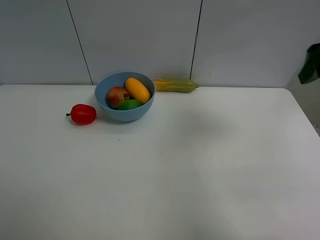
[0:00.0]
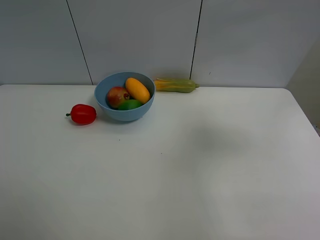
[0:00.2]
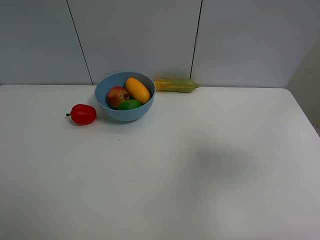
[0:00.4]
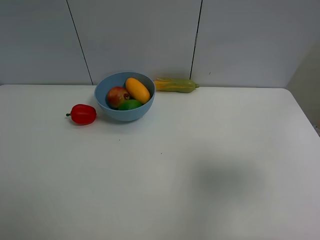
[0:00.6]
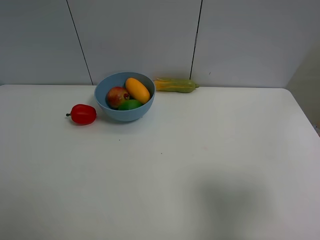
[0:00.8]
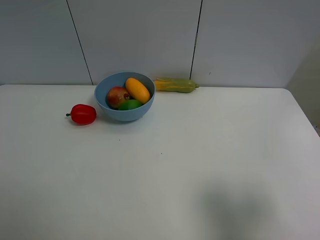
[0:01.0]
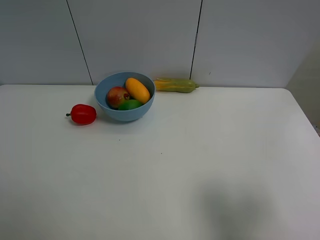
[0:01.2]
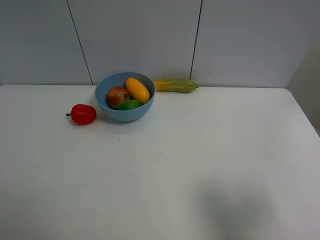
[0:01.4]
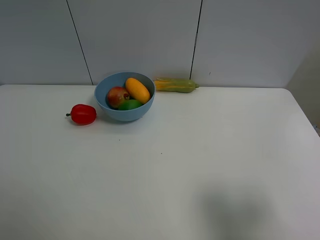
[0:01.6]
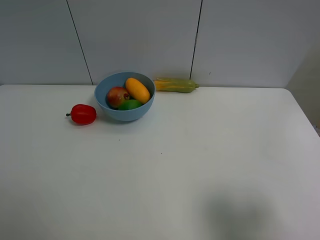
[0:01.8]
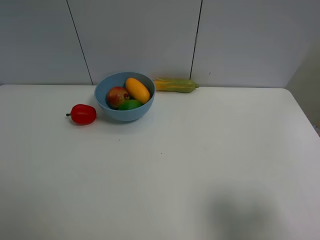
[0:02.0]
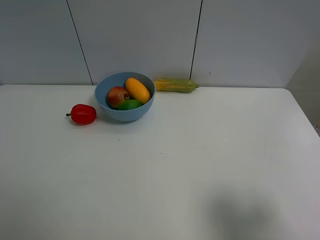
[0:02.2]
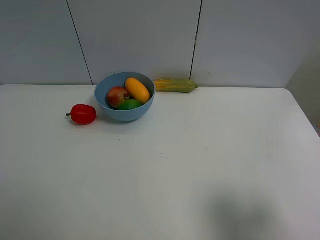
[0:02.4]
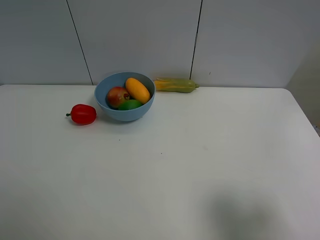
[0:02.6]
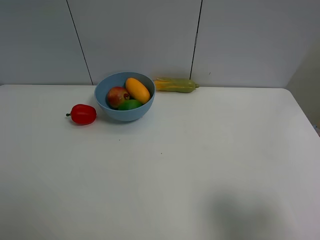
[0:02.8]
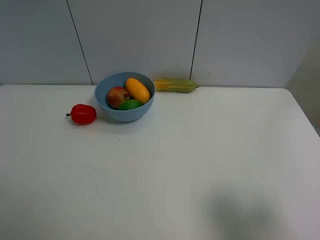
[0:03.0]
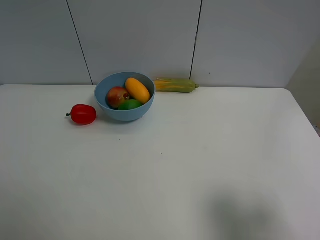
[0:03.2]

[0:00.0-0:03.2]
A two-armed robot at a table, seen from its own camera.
Task of the whole recording: Put the three fruits on the table into a bowl.
0:00.0 to 0:01.6: The right gripper moves backward and downward, roughly 25 cm.
